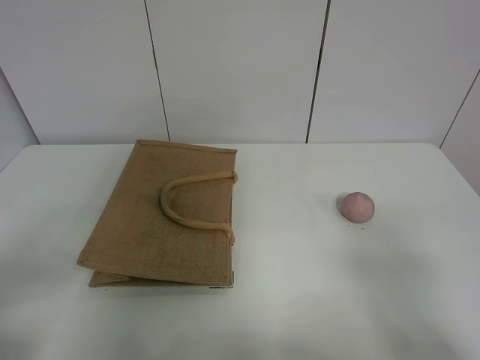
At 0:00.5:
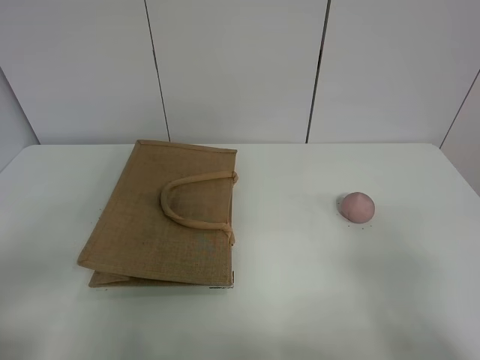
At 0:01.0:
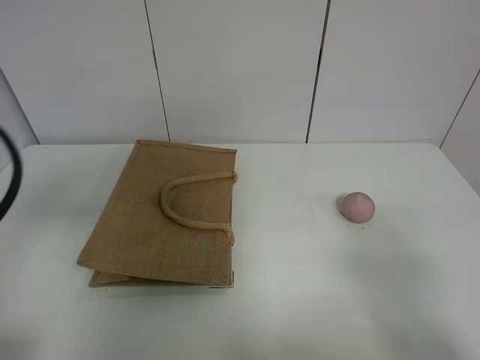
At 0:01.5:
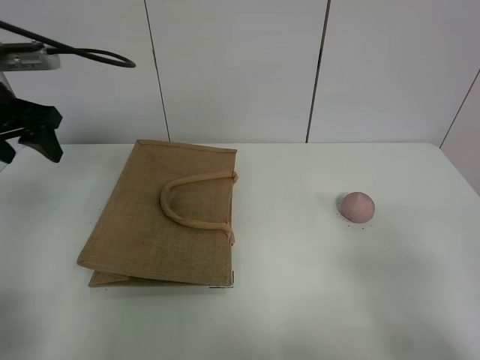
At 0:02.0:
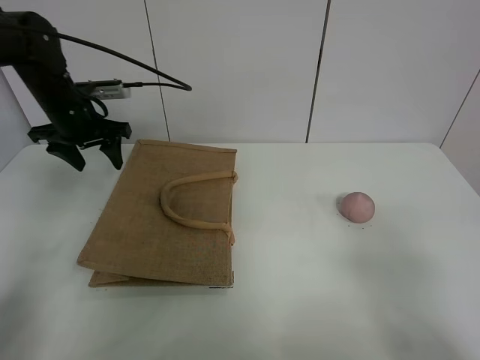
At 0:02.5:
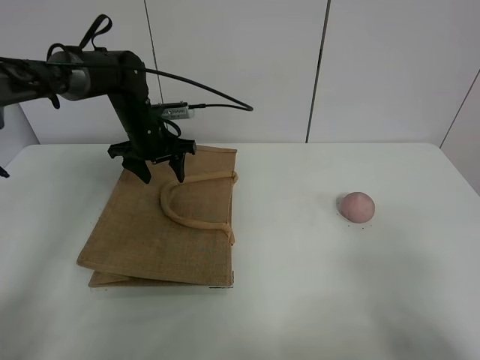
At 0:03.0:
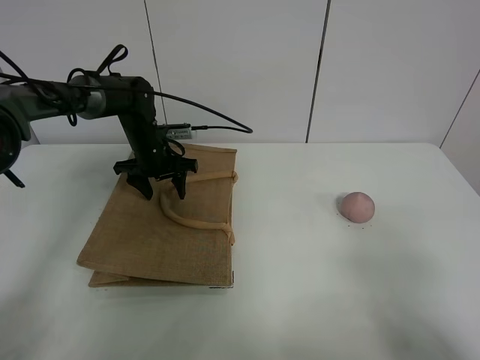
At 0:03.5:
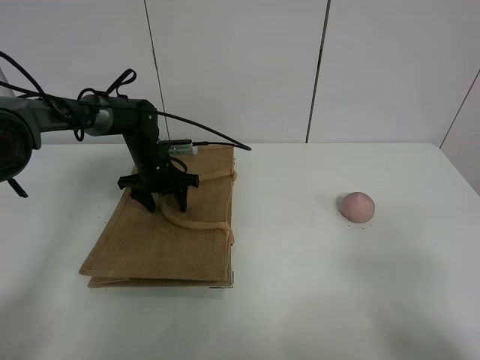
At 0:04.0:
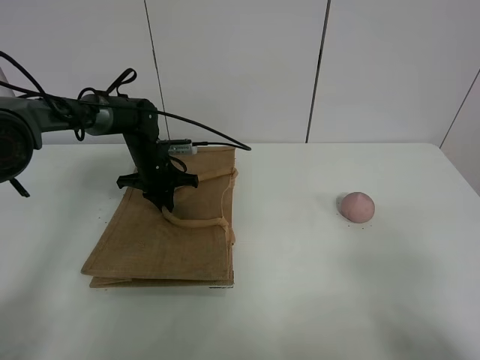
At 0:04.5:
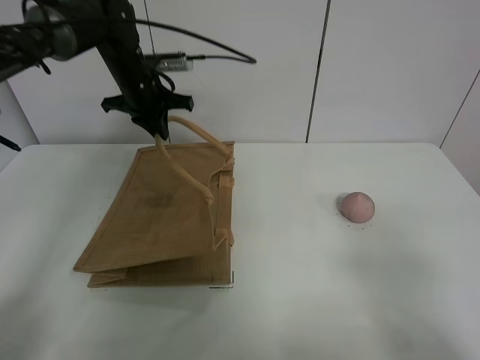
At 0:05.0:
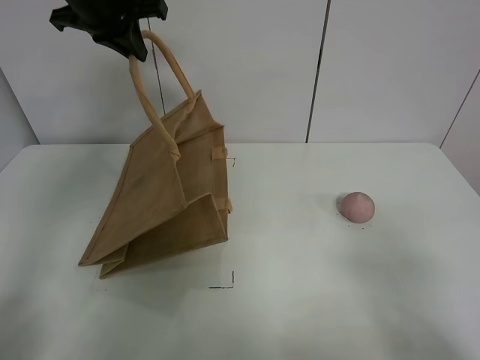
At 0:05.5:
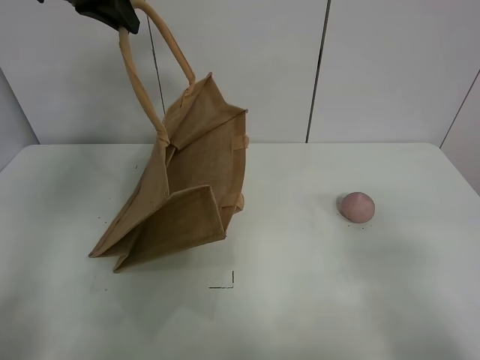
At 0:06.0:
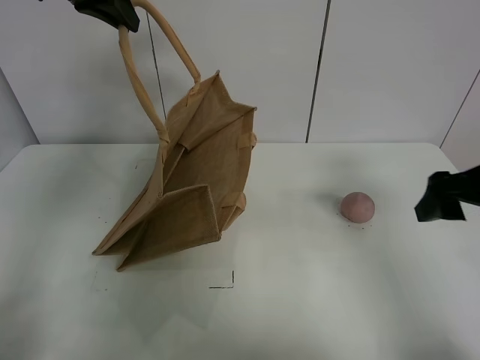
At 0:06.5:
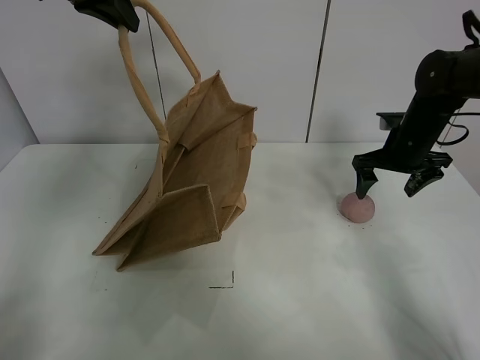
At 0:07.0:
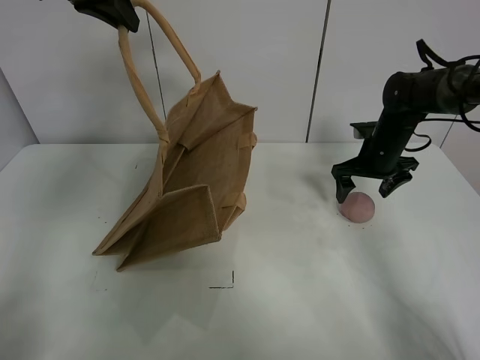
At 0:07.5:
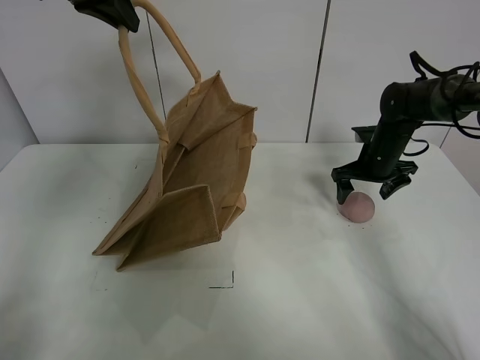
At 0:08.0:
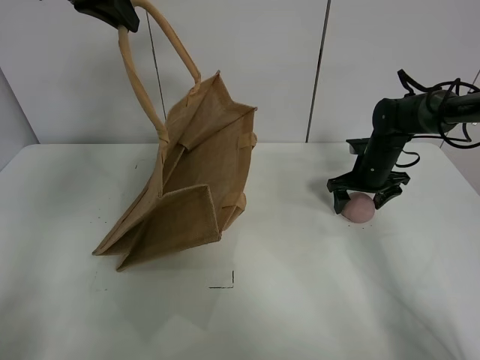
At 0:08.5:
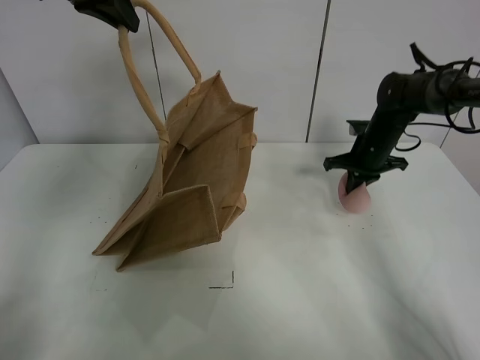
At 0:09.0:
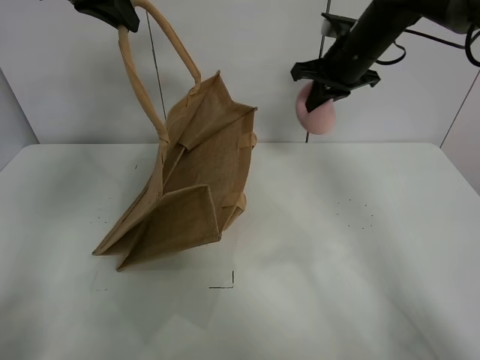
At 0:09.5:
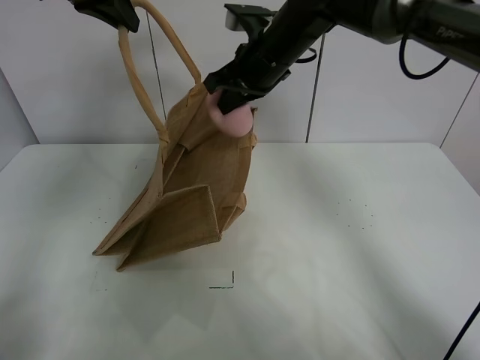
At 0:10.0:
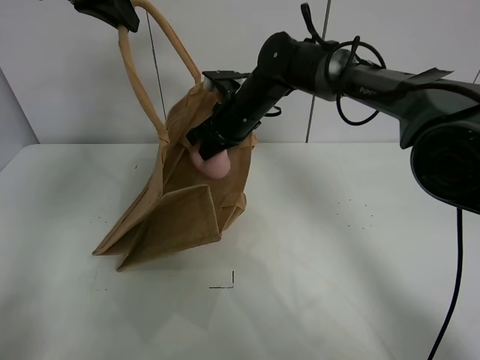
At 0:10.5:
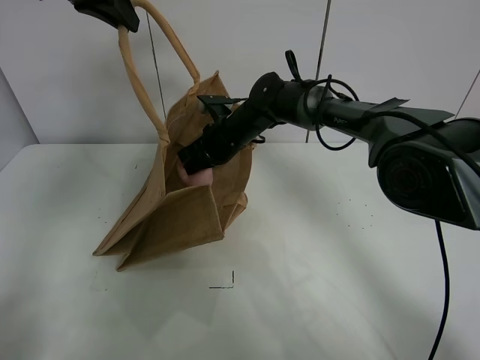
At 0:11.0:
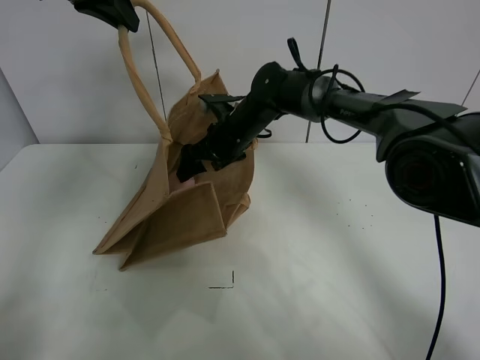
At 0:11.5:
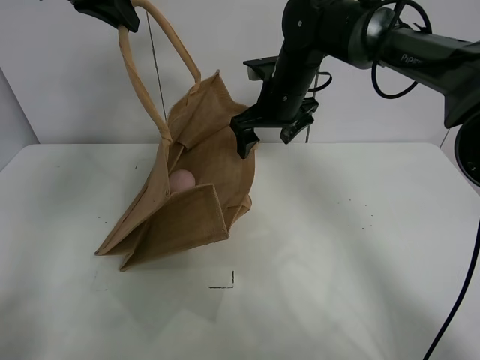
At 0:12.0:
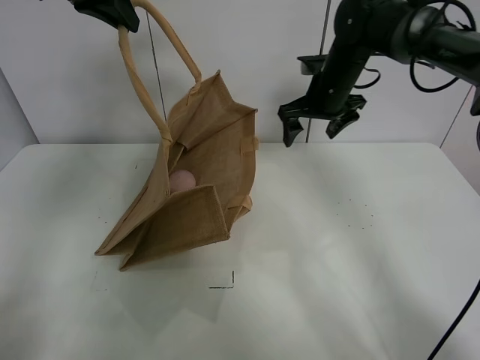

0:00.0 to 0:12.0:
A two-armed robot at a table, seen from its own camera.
Task of the whole recording: open the brown linen bag and put the peach in the bag.
Step, 0:00.0 to 0:05.0: Lift the handbag with left gripper.
Step, 0:05.5 to 0:08.0: Grasp the peach with right gripper.
Step, 0:08.5 to 0:11.5: Place the peach in the handbag with right gripper.
0:00.0 to 0:02.0: The left gripper heads forward, covering about 40 cm.
0:02.0 to 0:04.0: The left gripper heads downward and to the right, covering approximately 15 cm, and closes.
0:04.0 to 0:06.0: The right gripper shifts roughly 25 cm forward. The left gripper travels upward by some 35 cm.
0:06.0 to 0:08.0: The right gripper travels forward and downward by approximately 25 cm.
0:08.0 to 0:10.0: The right gripper shifts about 25 cm to the left and upward, and closes its fingers.
0:10.0 to 0:12.0: The right gripper is displaced to the right by approximately 15 cm, and opens.

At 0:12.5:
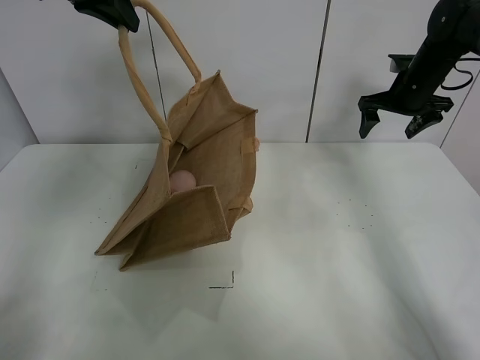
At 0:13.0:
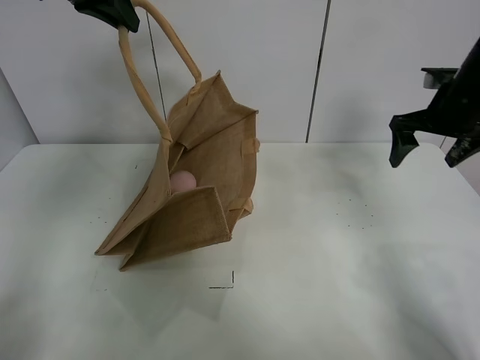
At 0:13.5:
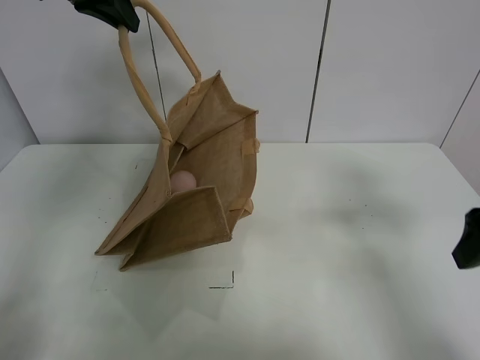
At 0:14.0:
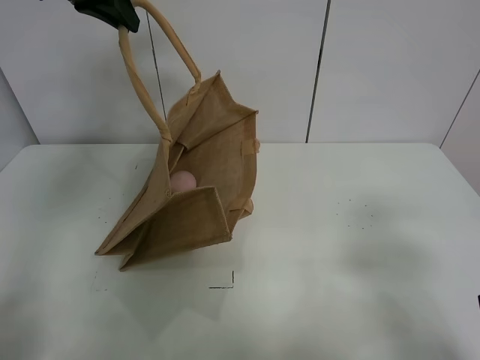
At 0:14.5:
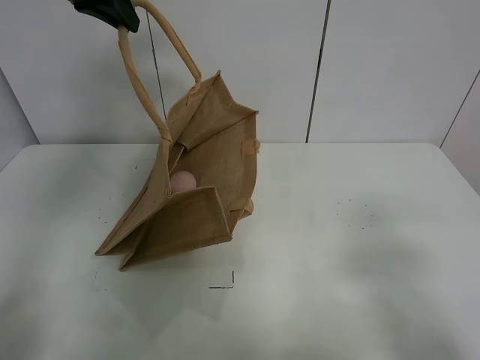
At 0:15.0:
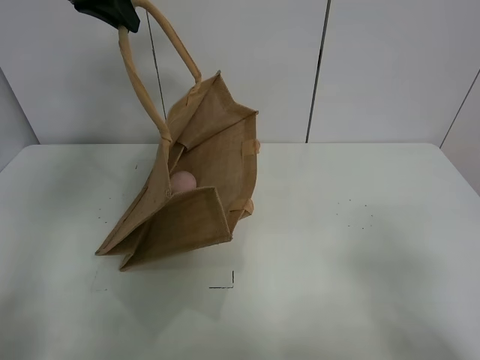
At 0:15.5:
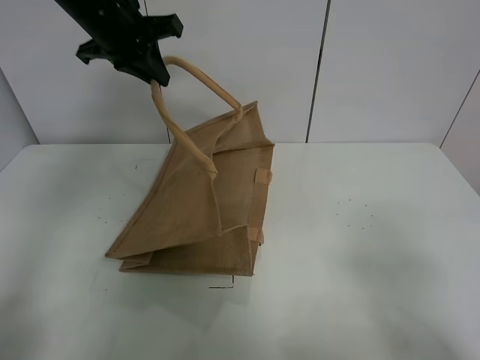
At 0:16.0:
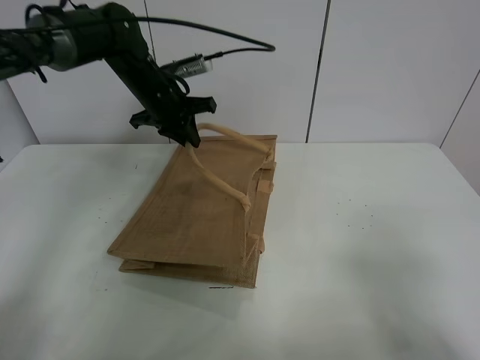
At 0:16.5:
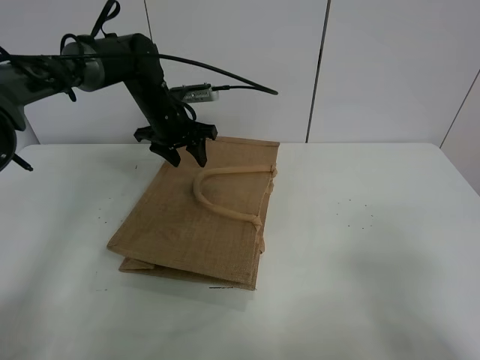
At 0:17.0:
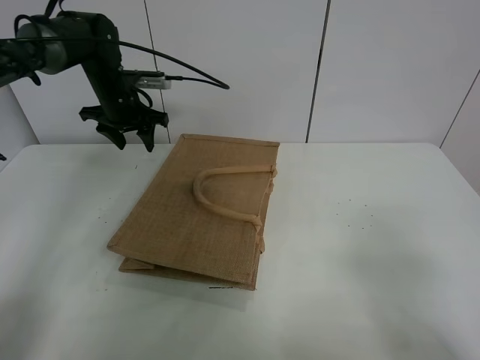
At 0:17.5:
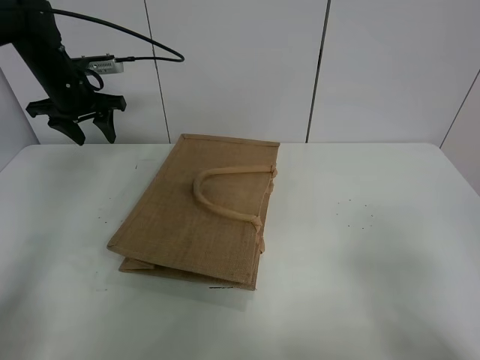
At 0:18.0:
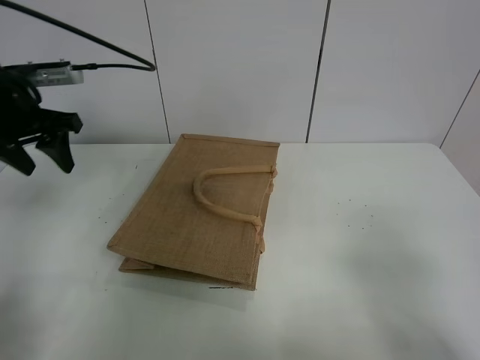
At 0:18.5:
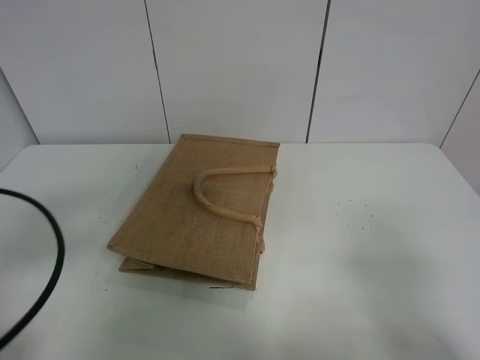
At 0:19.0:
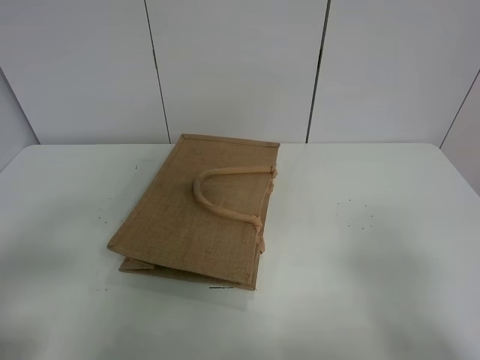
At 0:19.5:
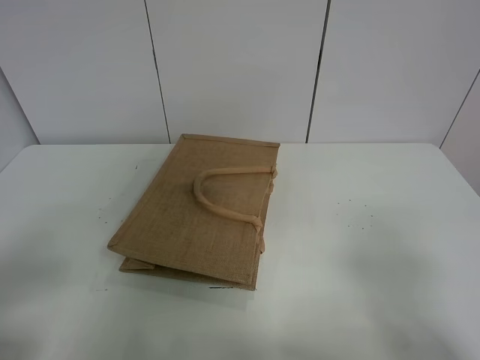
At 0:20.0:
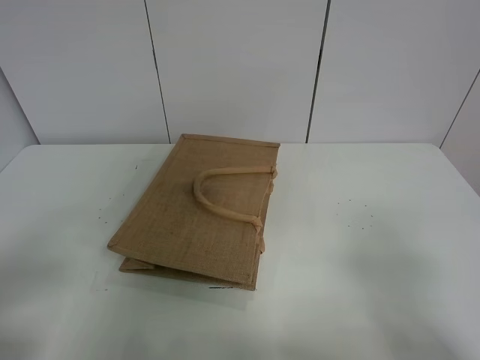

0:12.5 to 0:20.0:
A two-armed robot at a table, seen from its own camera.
Task of the whole recording: open the brown linen bag and put the peach in the bag.
Step, 0:12.5 to 0:16.5: Put down the handbag with left grippe.
0:12.5 to 0:14.5: The right gripper goes roughly 40 cm backward.
0:14.5 to 0:16.5: The left gripper shifts about 25 cm downward, and opens.
0:16.5 to 0:18.0: The left gripper moves backward, to the left and upward, roughly 25 cm.
0:18.0 to 0:20.0: The left gripper heads backward, covering roughly 30 cm.

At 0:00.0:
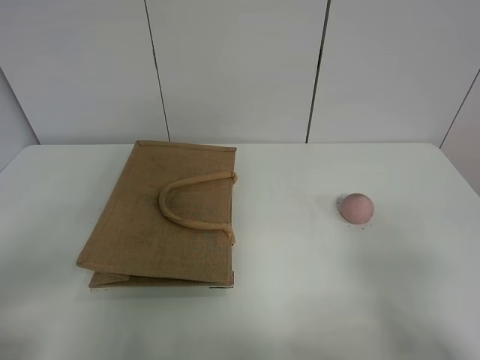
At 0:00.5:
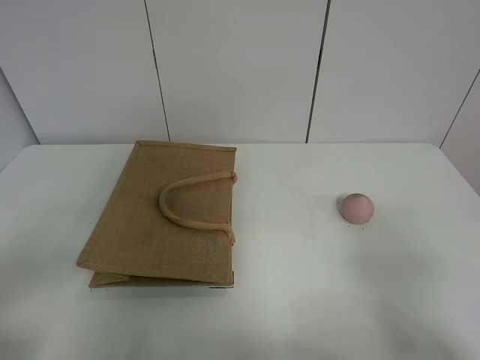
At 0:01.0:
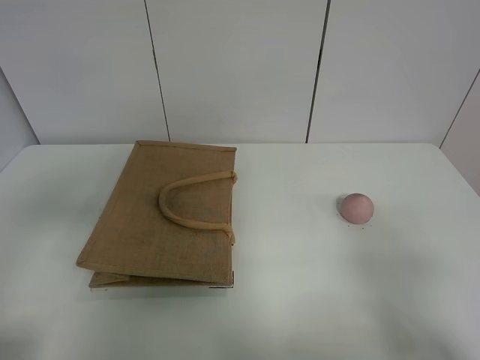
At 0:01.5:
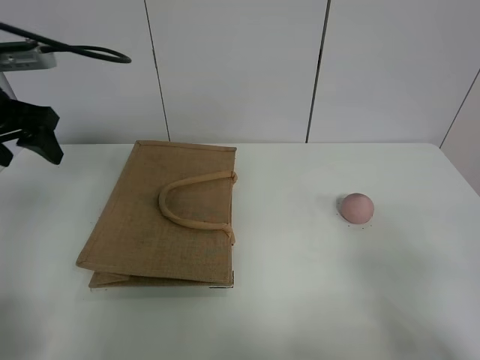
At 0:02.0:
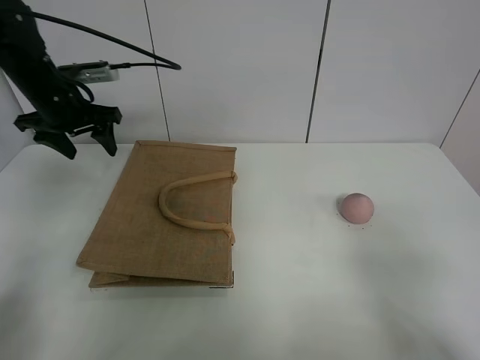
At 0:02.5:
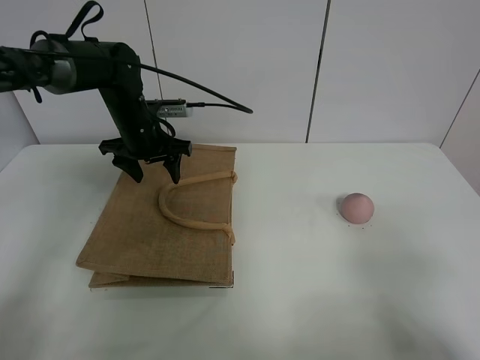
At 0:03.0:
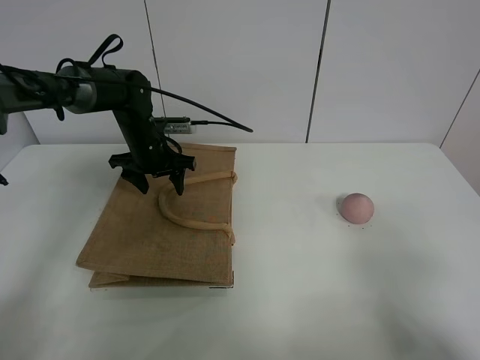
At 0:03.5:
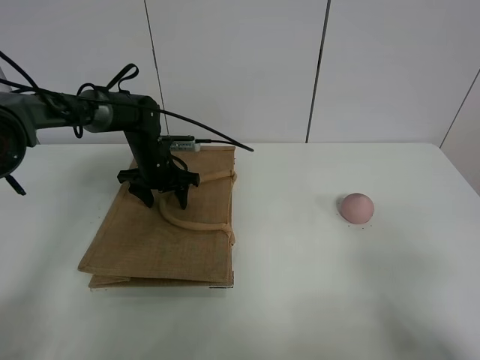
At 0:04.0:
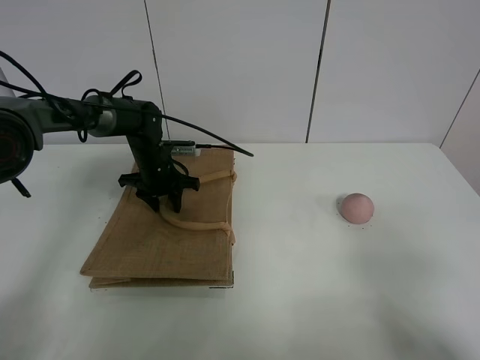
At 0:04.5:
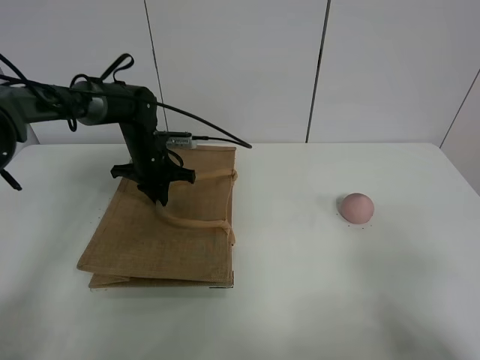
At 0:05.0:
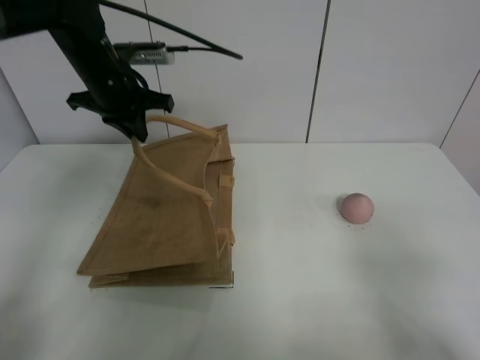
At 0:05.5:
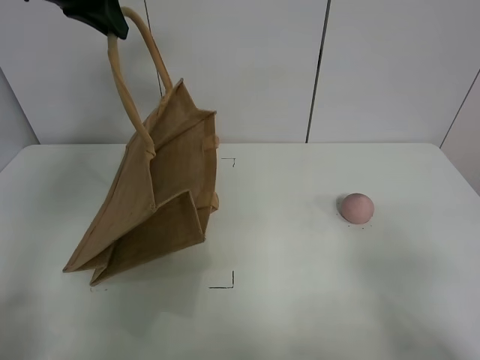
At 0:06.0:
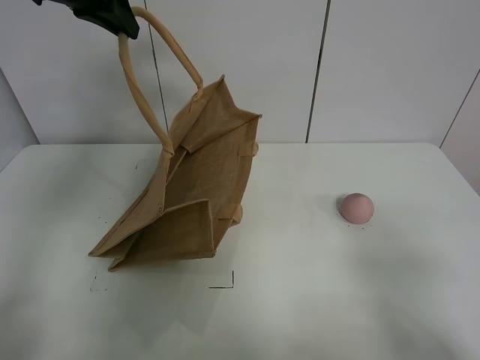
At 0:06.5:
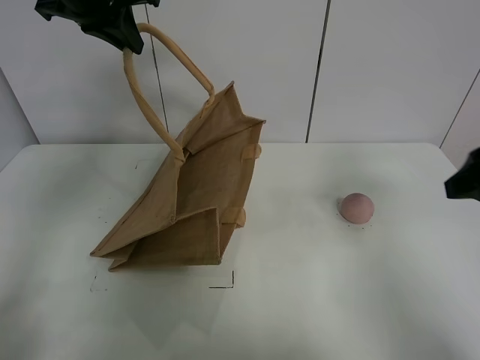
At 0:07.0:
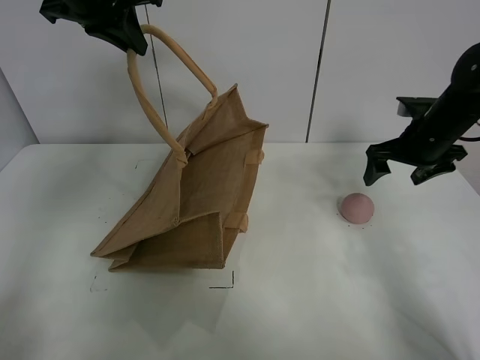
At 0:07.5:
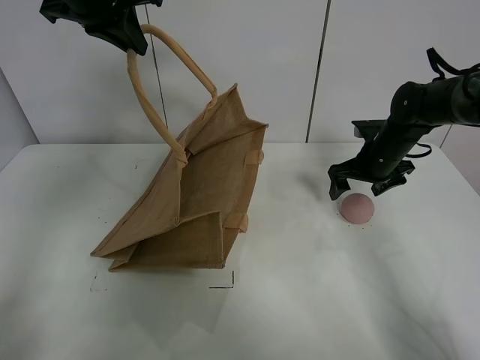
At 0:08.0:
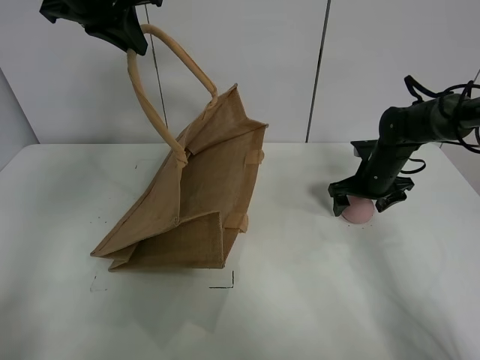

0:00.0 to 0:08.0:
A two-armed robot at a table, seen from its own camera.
Task of the whole recording: open the brown linen bag and put the peach in the bag.
Step, 0:00.0 to 0:06.0: Lift the handbag with left gripper.
0:00.0 to 0:02.0: The left gripper shifts roughly 40 cm forward.
0:02.0 to 0:04.0: The left gripper shifts roughly 20 cm downward and to the right, and closes its fingers.
0:04.0 to 0:06.0: The left gripper shifts some 35 cm upward, and closes up.
0:06.0 to 0:08.0: The right gripper shifts roughly 40 cm forward and downward.
